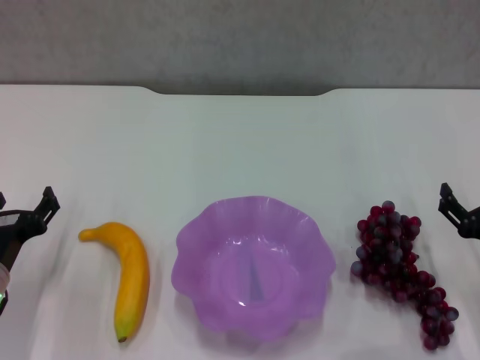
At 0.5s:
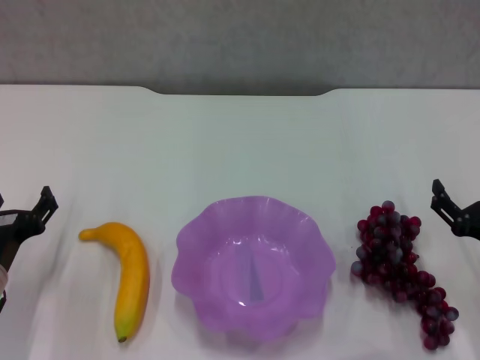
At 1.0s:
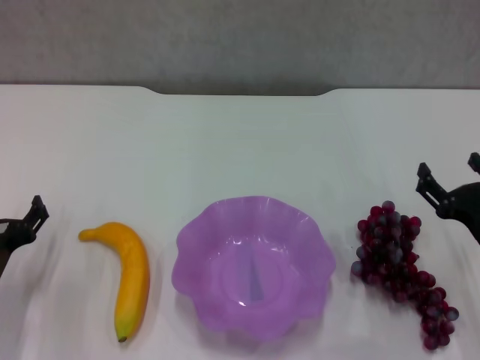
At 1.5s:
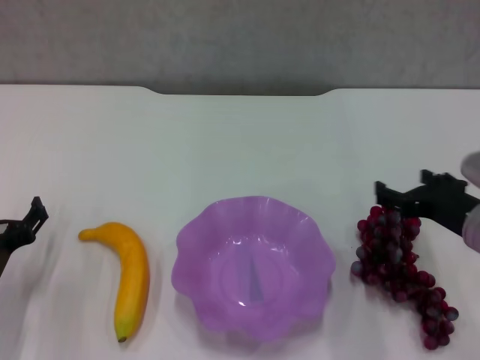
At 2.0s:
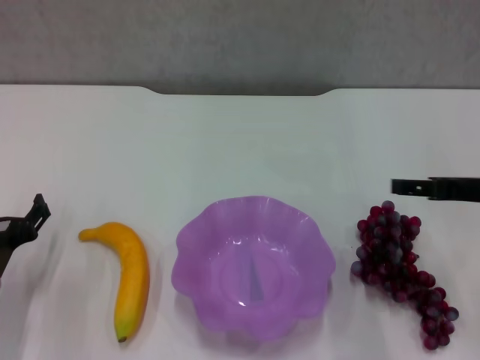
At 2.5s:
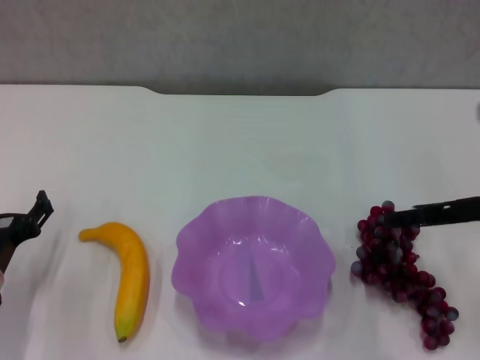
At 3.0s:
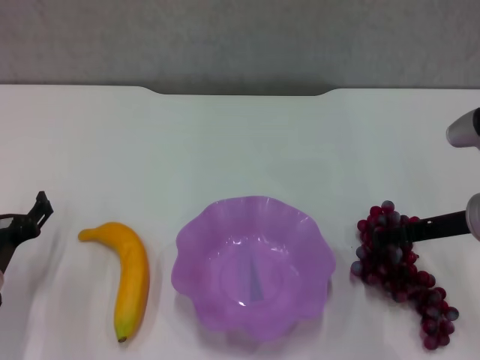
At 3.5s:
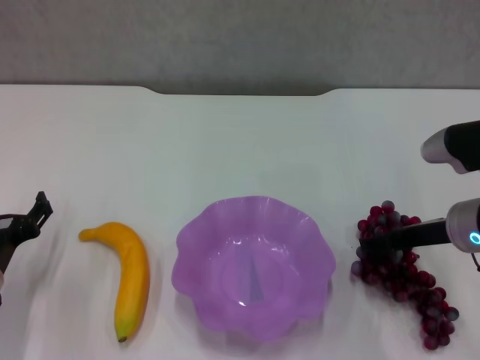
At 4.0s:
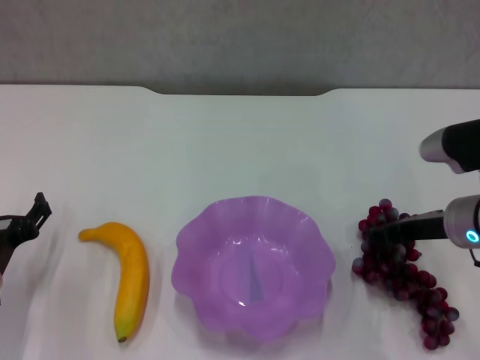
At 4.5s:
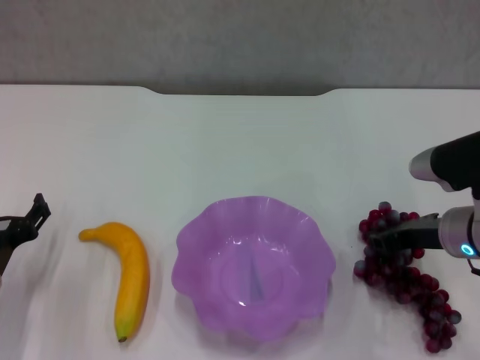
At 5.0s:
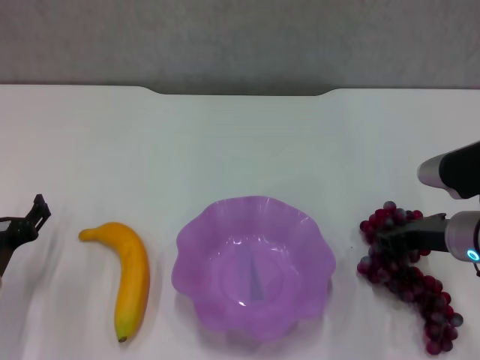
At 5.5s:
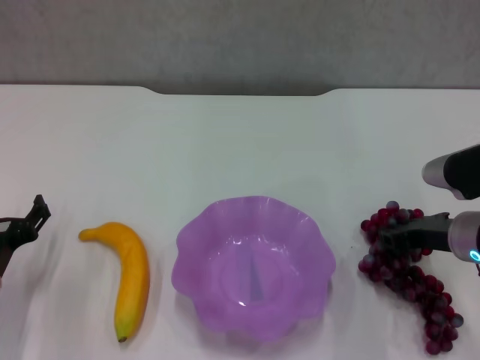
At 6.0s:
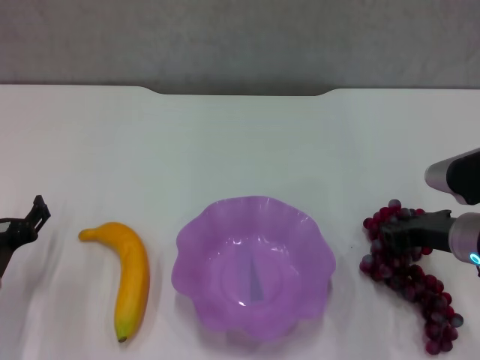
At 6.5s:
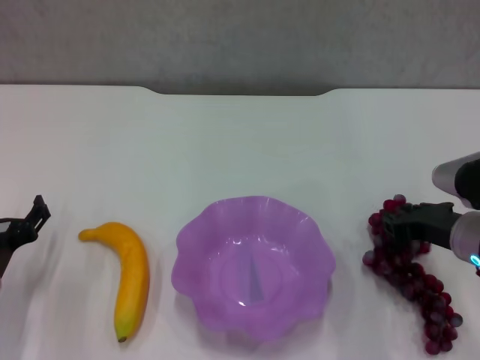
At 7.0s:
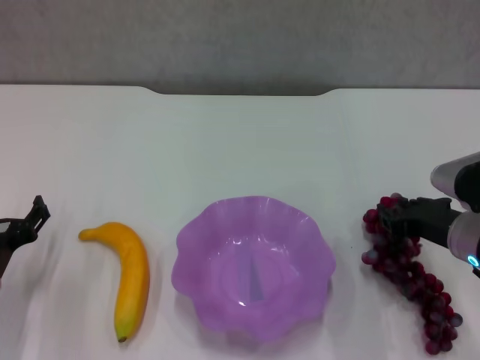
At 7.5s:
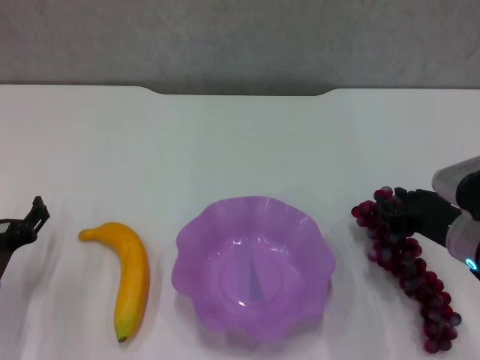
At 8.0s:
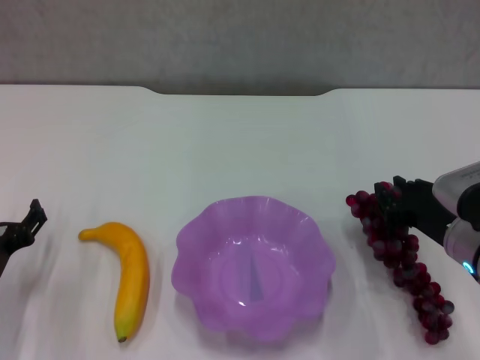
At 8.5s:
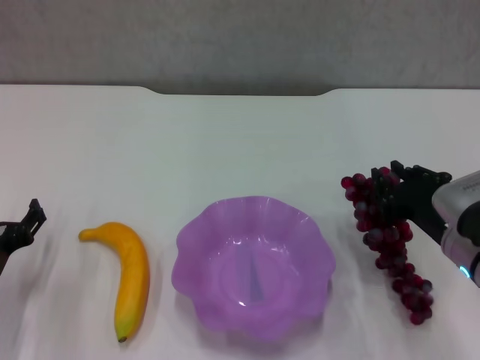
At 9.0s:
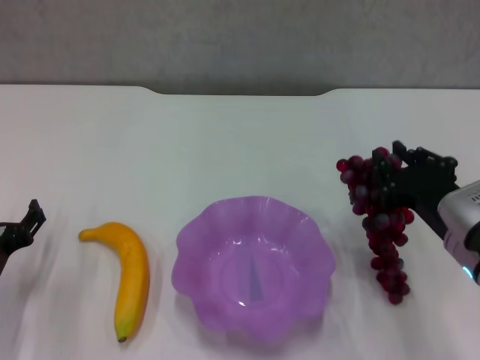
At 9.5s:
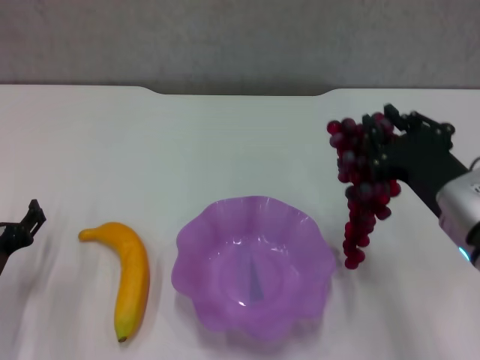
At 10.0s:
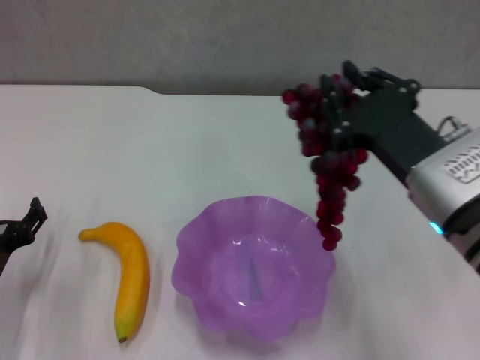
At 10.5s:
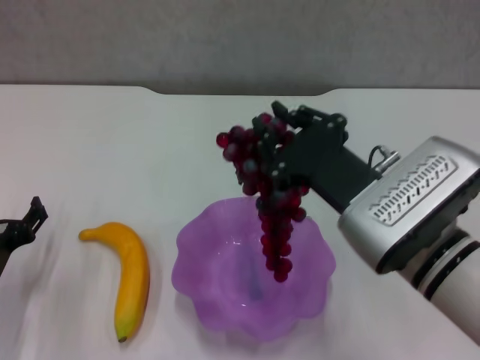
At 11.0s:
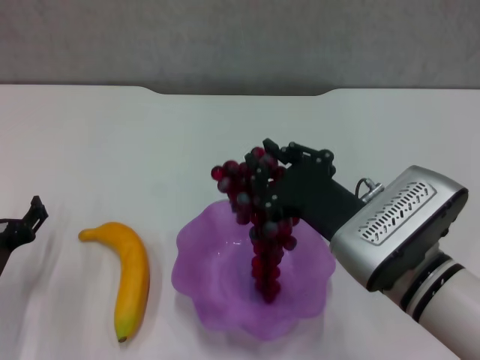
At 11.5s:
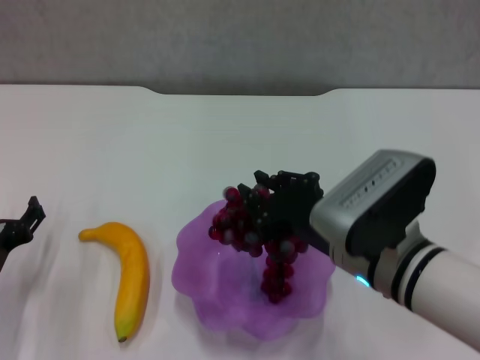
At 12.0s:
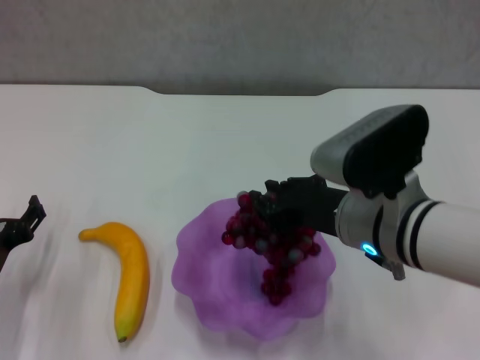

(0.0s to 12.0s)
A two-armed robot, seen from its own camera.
Step, 0.0s - 4.0s: Grasp the grape with right gripper.
0.0s - 2.0s: The right gripper heads upward and forward, covering approximately 15 cm.
2.0s - 4.0s: The right gripper heads downward, covering approximately 5 cm.
4.0s - 6.0s: The right gripper closes its fingers.
6.0s - 8.0s: The grippers stay close to where they were, moving slightly.
8.0s - 10.0s: The right gripper shifts about 10 cm upward and to the left.
10.0s - 12.0s: The right gripper moves about 5 cm.

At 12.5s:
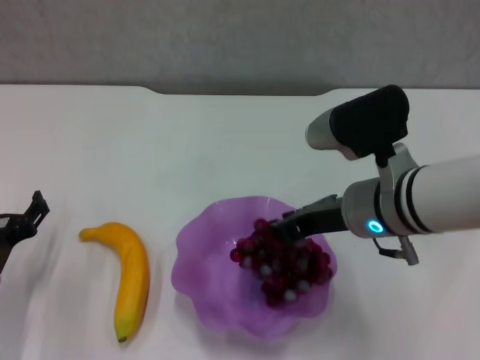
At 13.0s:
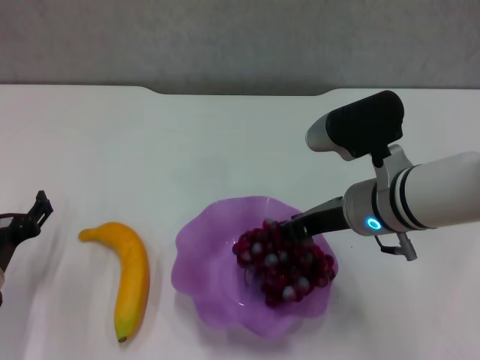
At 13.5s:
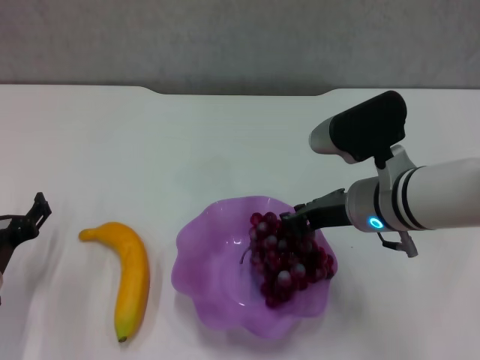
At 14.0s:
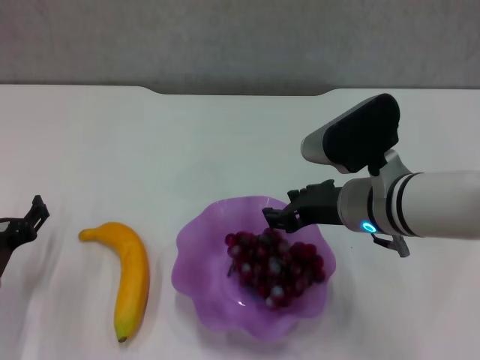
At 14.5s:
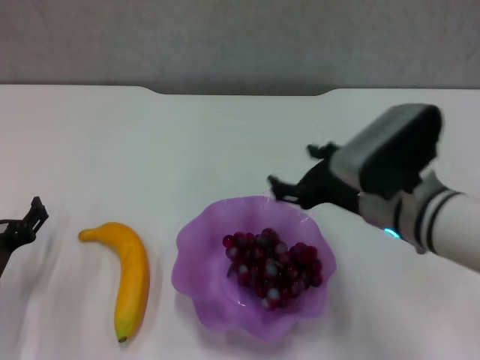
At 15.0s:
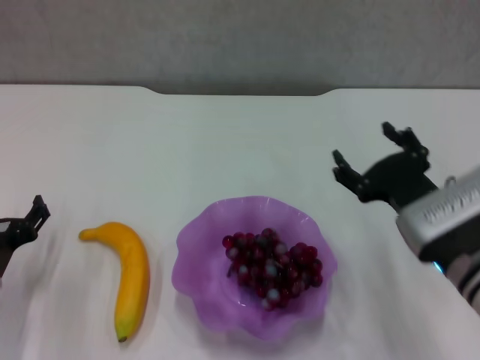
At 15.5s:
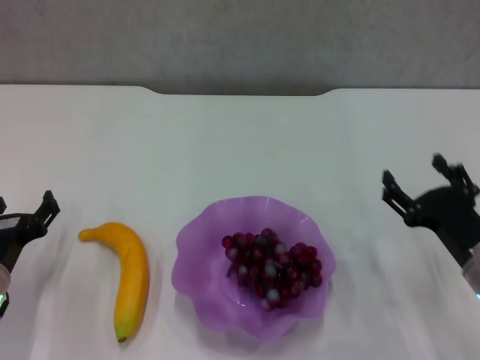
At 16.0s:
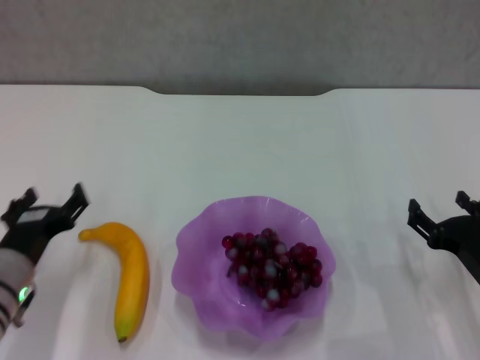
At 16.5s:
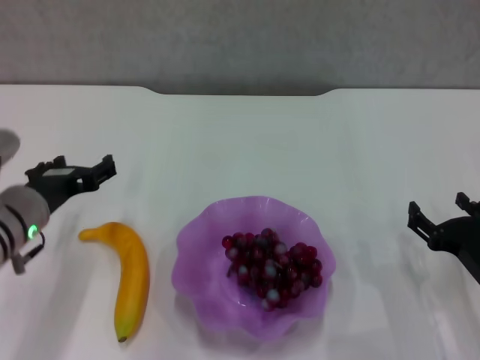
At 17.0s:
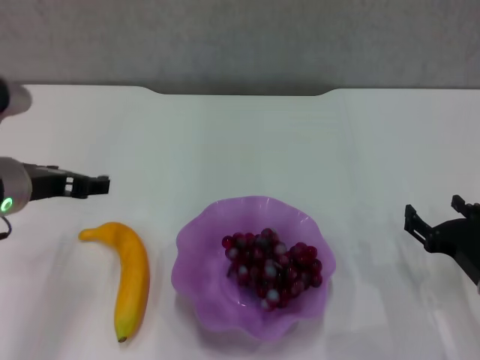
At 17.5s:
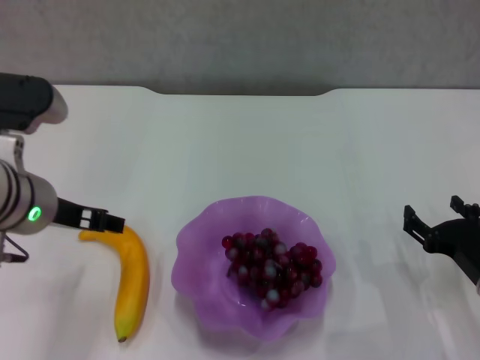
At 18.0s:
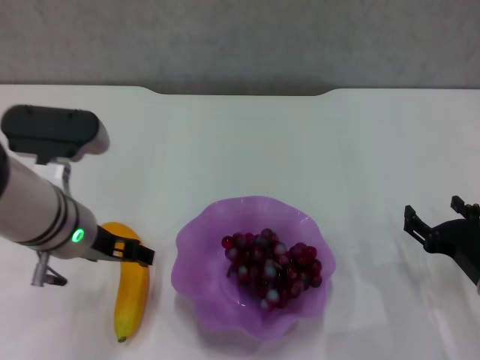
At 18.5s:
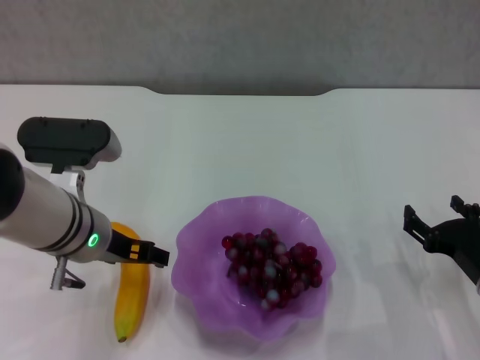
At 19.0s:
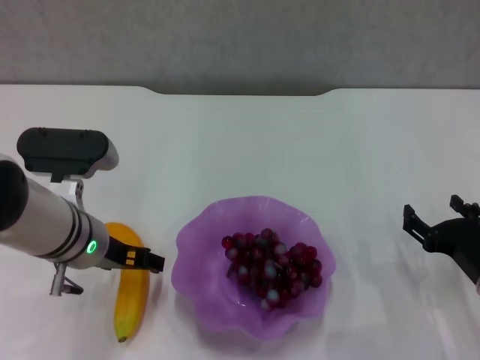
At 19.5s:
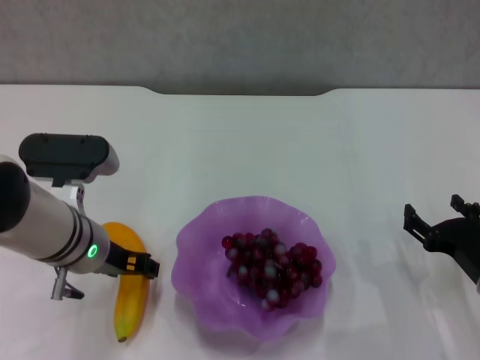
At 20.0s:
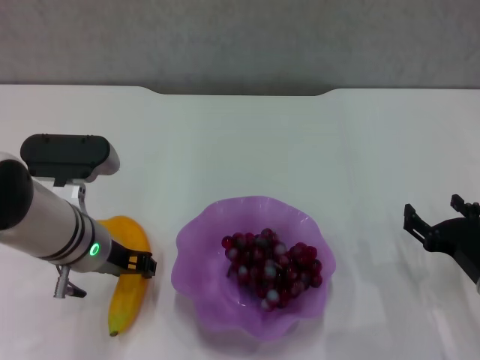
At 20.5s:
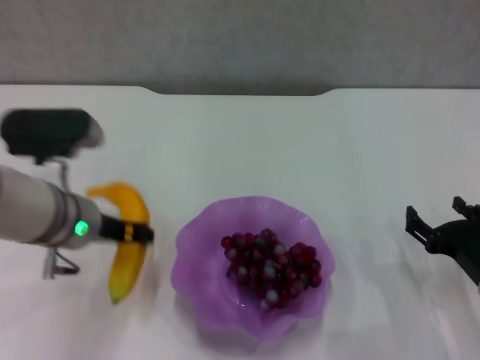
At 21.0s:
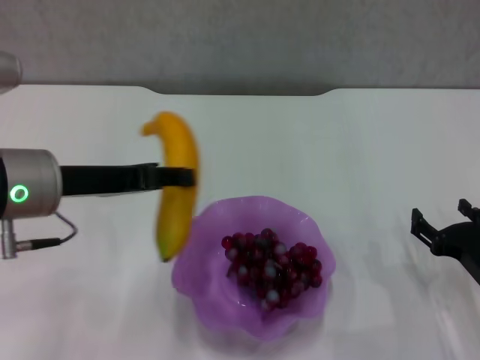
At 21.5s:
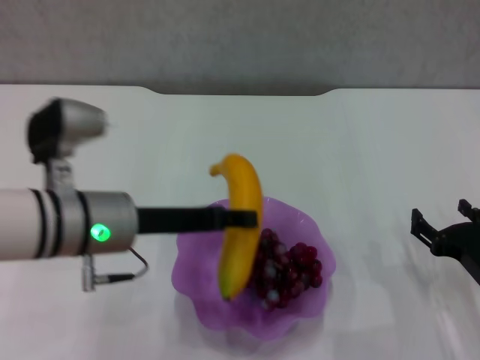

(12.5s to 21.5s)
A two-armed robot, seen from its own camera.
Step, 14.5s - 20.0s: Grasp the banana with left gripper.
12.5s - 14.5s: The right gripper opens up.
14.5s - 17.0s: The right gripper goes approximately 15 cm to the right and downward, while the left gripper shifts roughly 15 cm upward.
17.0s - 19.5s: The left gripper goes about 10 cm downward and to the right.
19.5s - 21.5s: The left gripper closes.

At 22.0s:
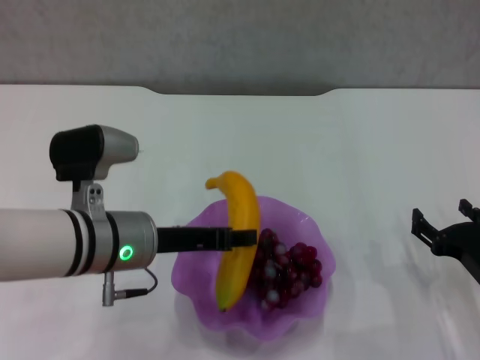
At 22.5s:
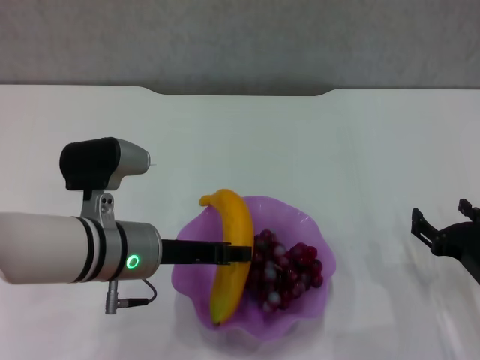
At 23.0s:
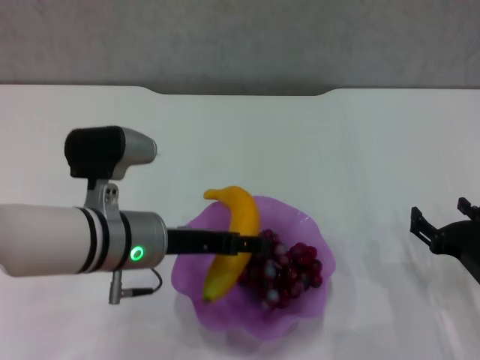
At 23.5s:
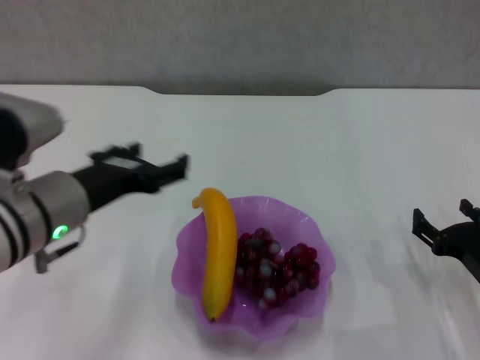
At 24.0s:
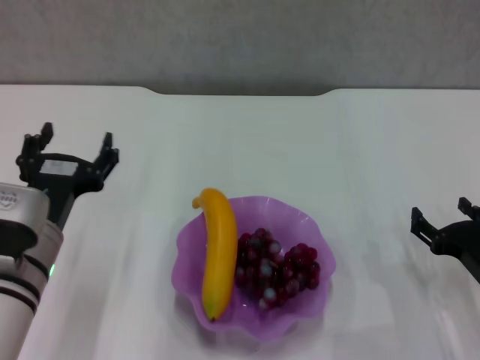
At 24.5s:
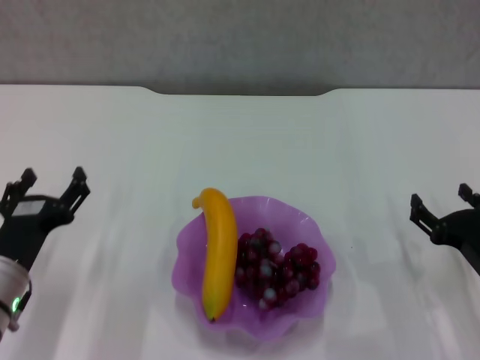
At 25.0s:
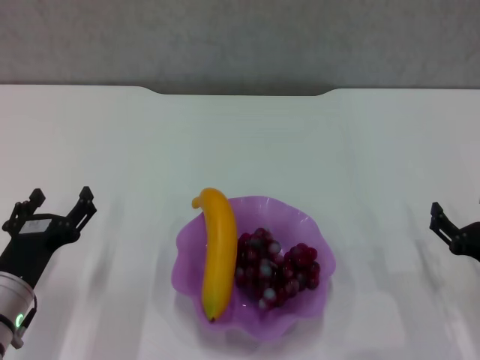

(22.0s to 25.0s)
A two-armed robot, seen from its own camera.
22.0s - 23.5s: The left gripper ends up about 5 cm from where it was, and opens.
23.5s - 25.0s: The left gripper is displaced downward and to the left by some 15 cm.

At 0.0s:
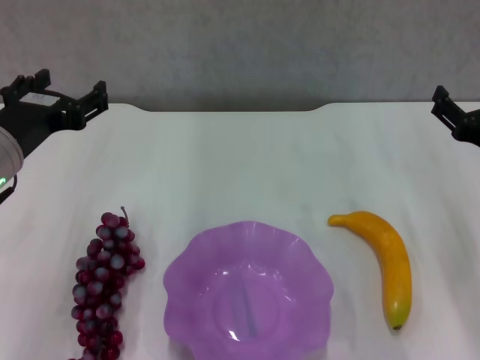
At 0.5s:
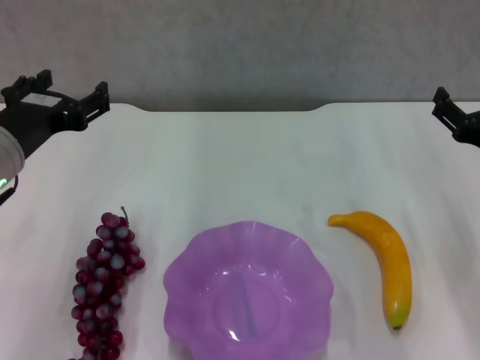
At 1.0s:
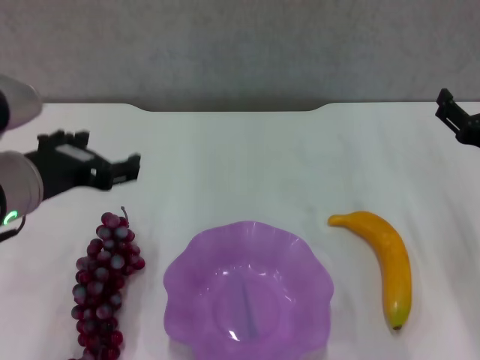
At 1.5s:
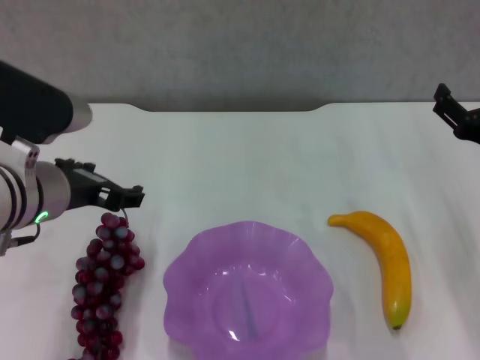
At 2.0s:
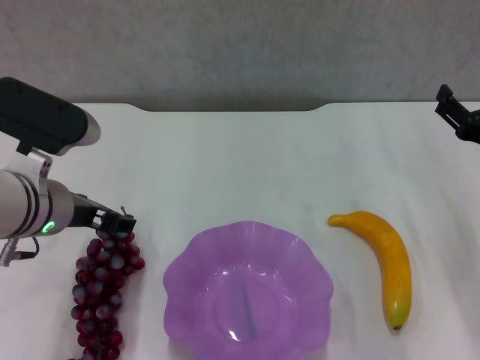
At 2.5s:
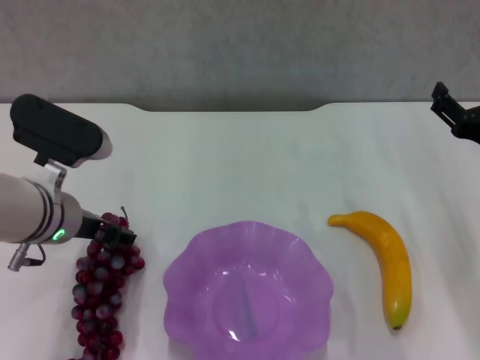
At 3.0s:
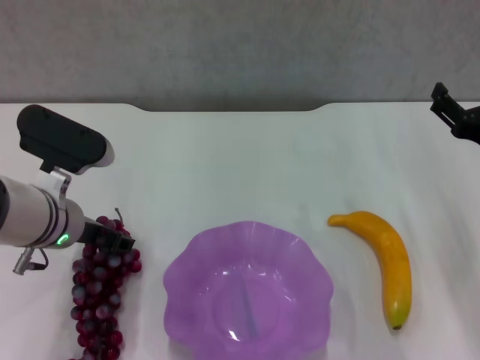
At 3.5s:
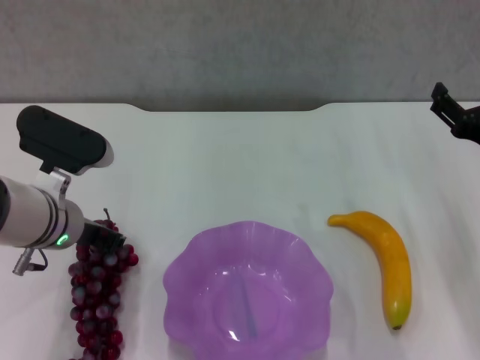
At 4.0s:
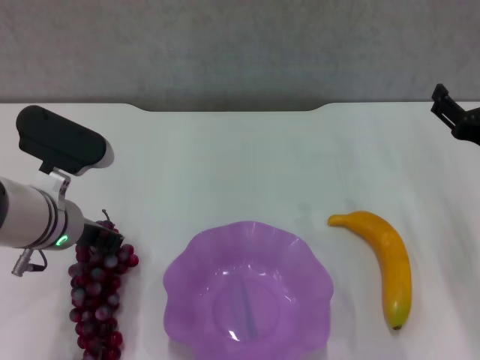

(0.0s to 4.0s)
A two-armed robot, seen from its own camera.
Step, 0.0s - 3.5s: Grasp the grape with left gripper.
2.0s - 4.0s: The left gripper closes up.
